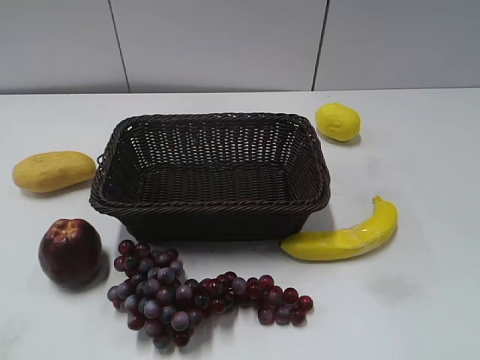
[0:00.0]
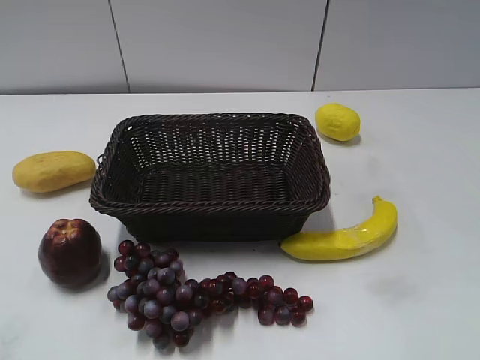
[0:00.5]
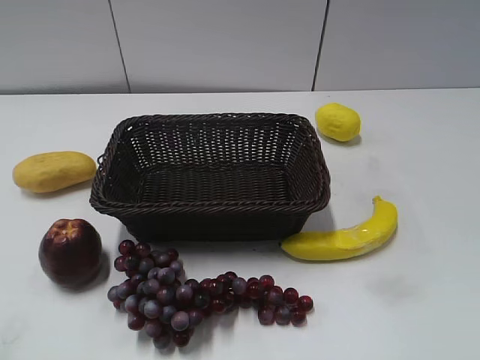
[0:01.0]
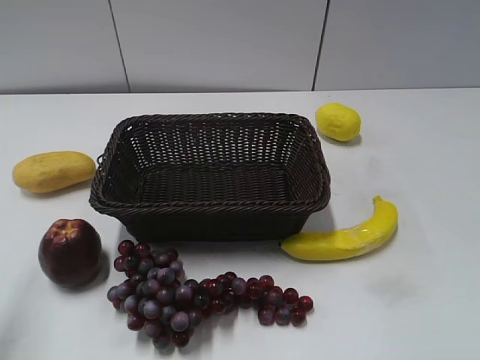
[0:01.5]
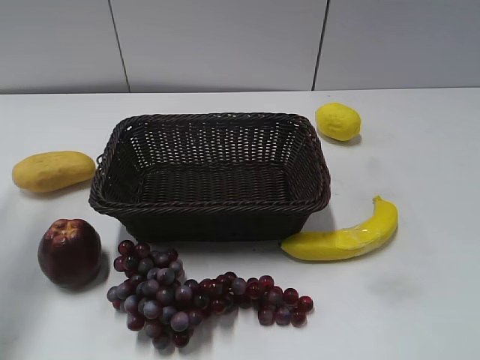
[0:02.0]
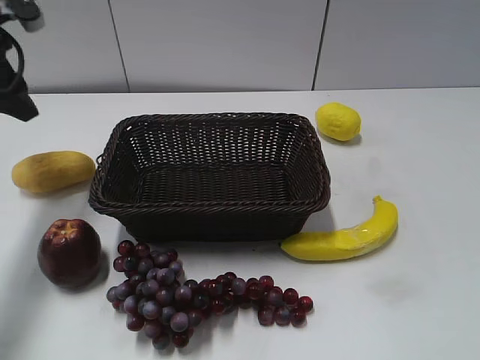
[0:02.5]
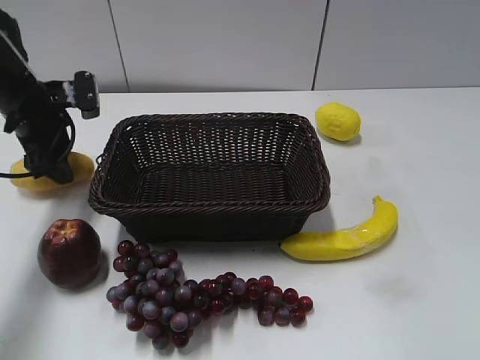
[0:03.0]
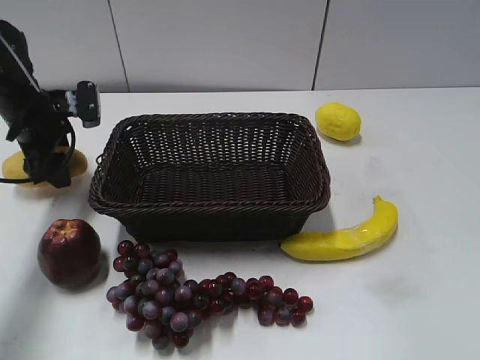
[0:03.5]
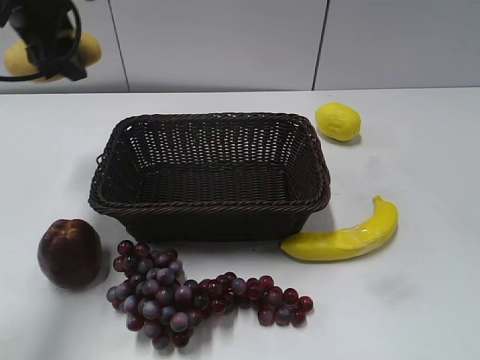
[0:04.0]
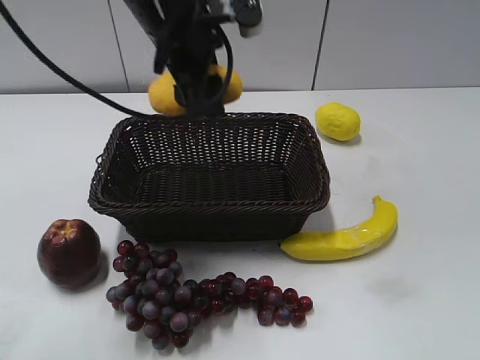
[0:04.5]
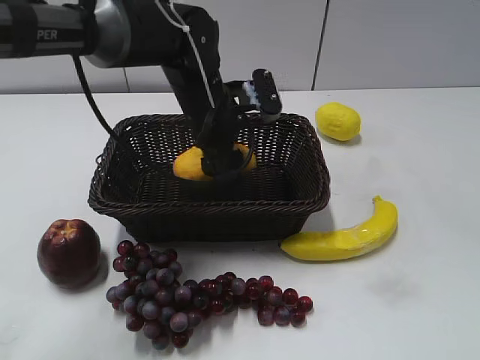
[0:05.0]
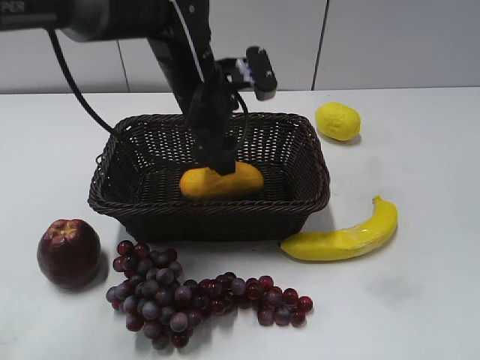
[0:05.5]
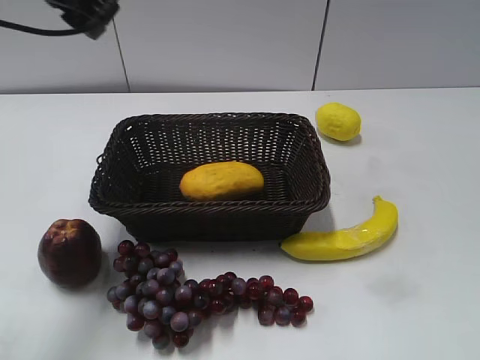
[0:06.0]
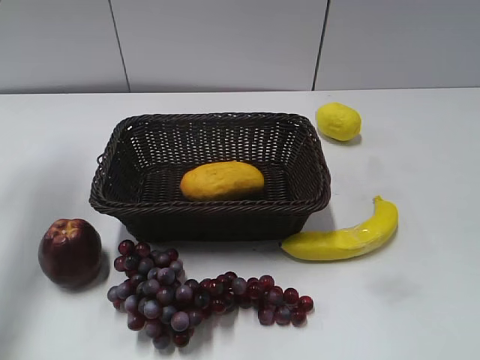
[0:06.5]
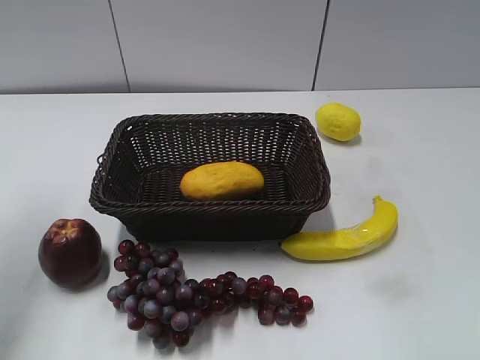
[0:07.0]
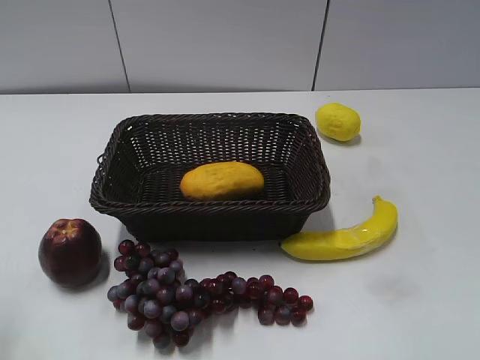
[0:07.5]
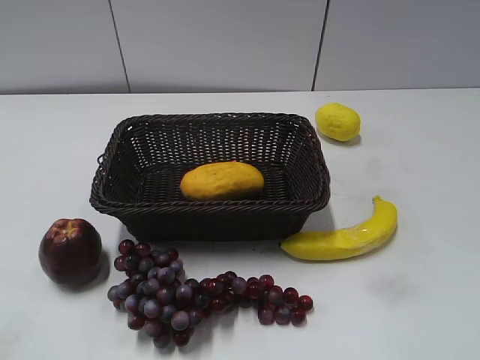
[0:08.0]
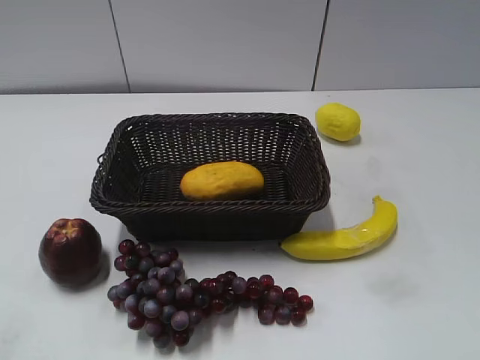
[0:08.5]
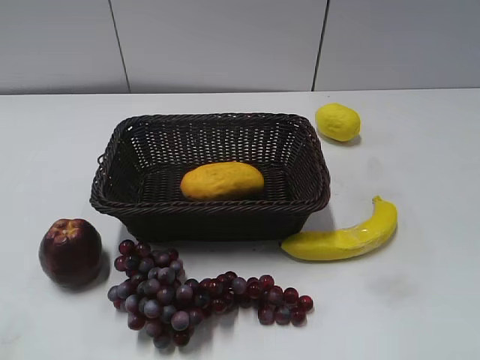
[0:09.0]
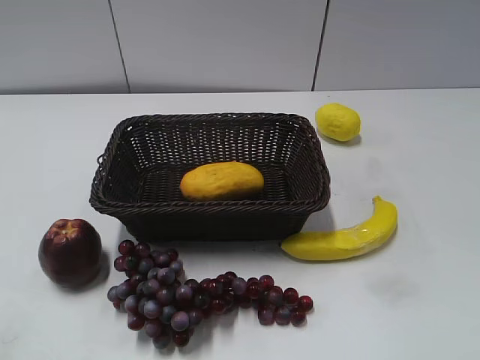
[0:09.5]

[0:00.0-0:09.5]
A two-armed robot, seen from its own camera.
Step, 0:02.5 to 0:03.0: Grasp the mango with left gripper.
Step, 0:03.5 to 0:05.0: Place the mango in the basket with left gripper.
0:02.0 to 0:04.0: The left gripper shifts some 15 cm forward and to the right, and moves about 15 cm downward and comes back.
0:04.0 to 0:05.5: The left gripper moves to the right and downward, about 20 cm, and opens its fingers.
0:05.5 to 0:07.5: The left gripper goes about 35 cm to the left and backward, and closes.
